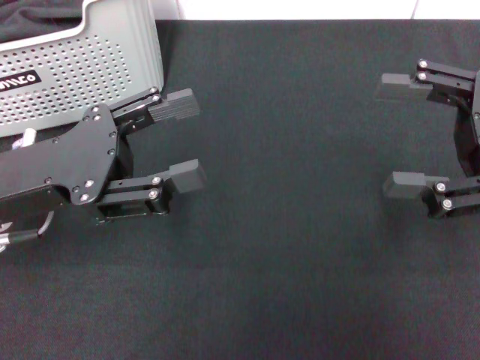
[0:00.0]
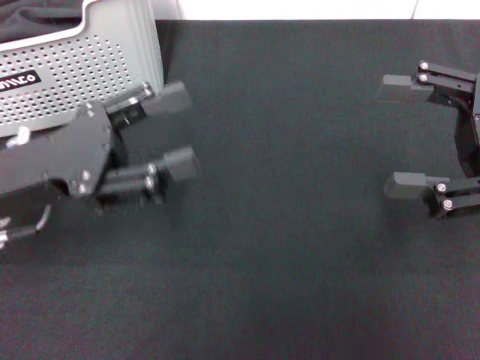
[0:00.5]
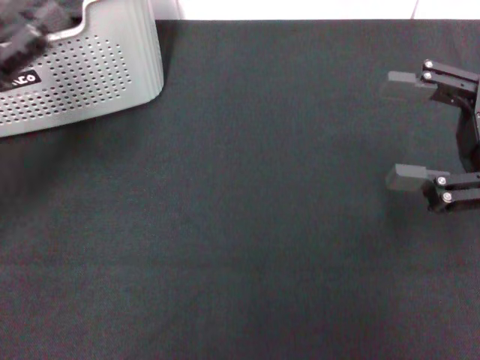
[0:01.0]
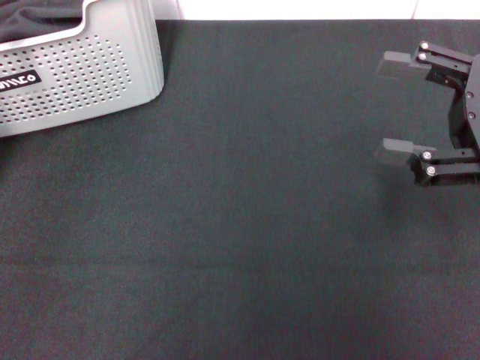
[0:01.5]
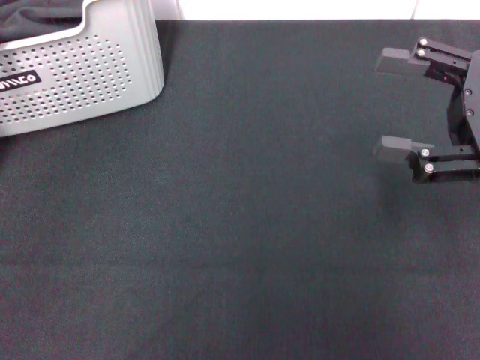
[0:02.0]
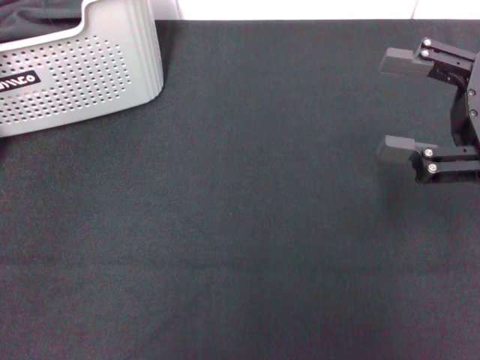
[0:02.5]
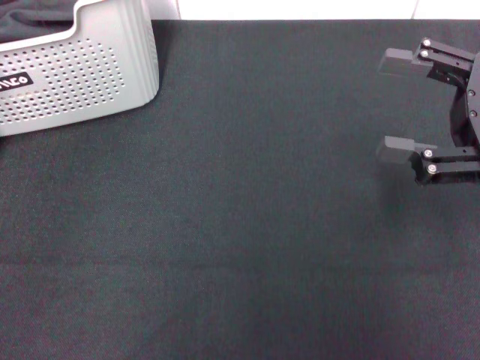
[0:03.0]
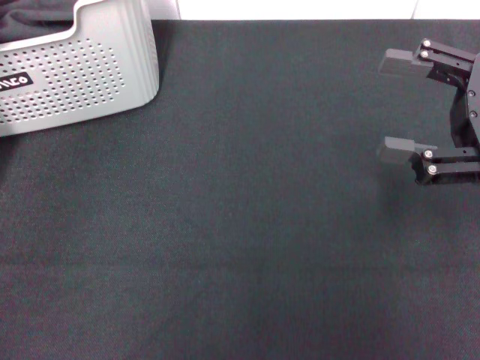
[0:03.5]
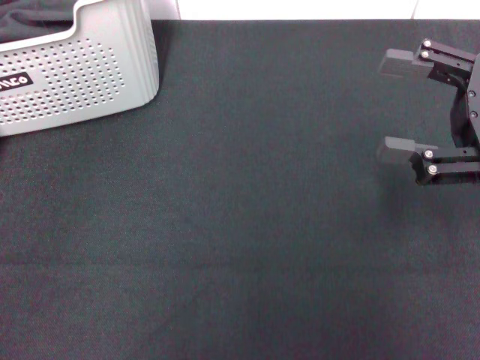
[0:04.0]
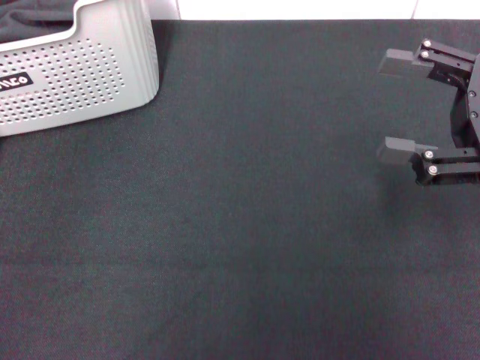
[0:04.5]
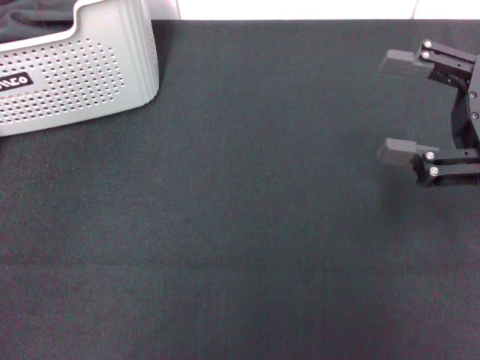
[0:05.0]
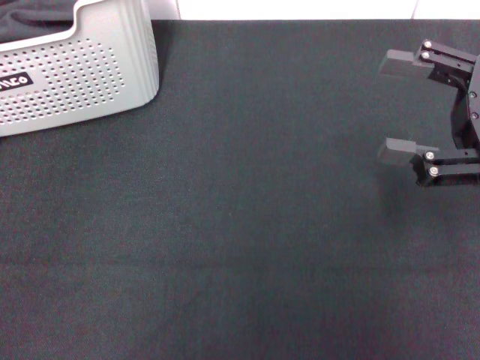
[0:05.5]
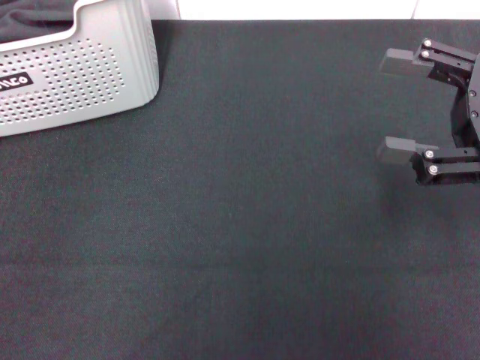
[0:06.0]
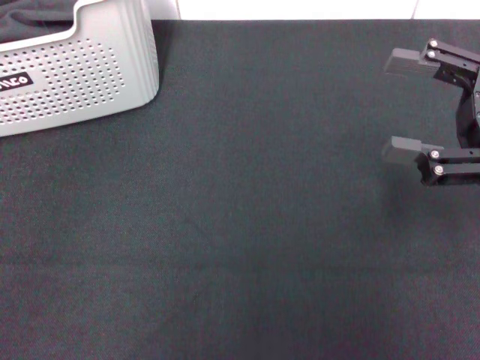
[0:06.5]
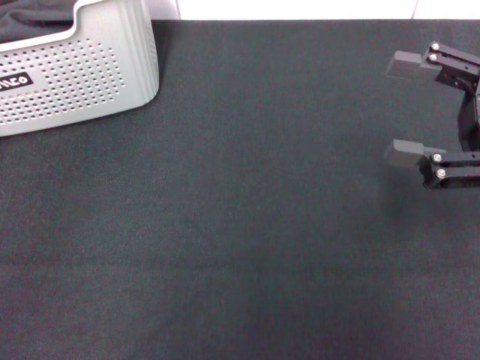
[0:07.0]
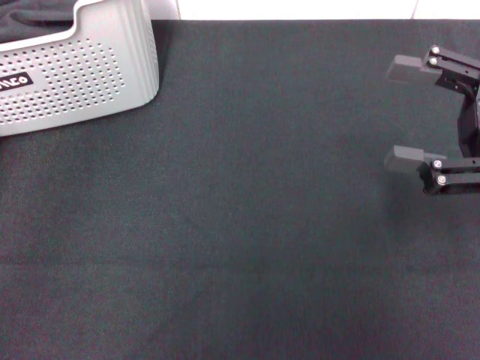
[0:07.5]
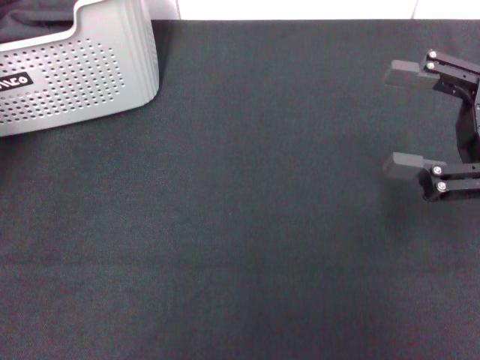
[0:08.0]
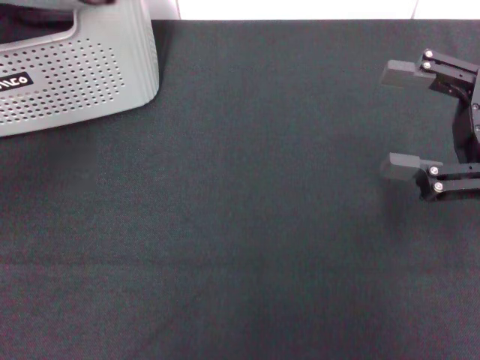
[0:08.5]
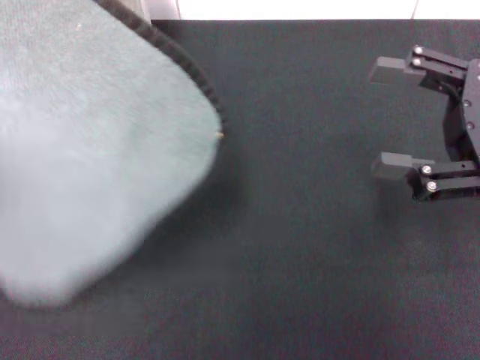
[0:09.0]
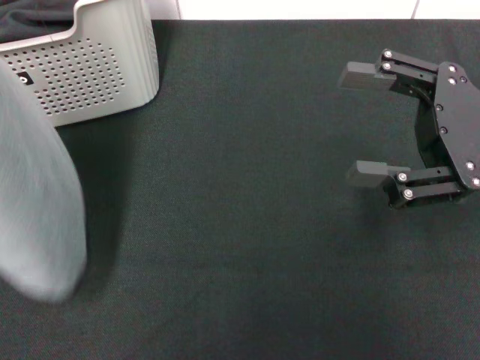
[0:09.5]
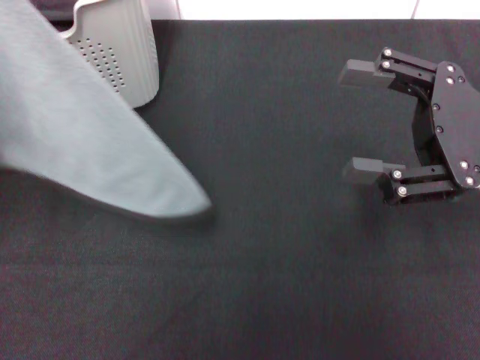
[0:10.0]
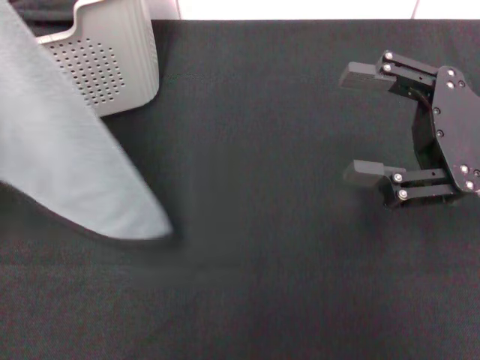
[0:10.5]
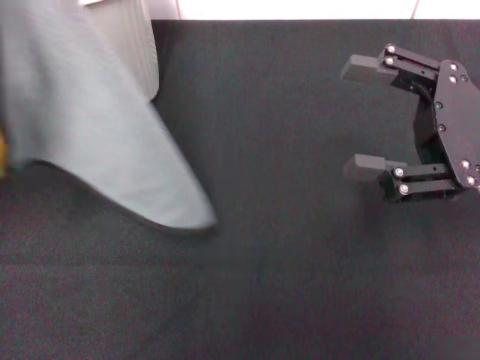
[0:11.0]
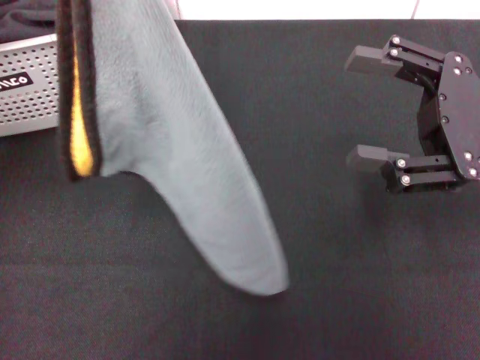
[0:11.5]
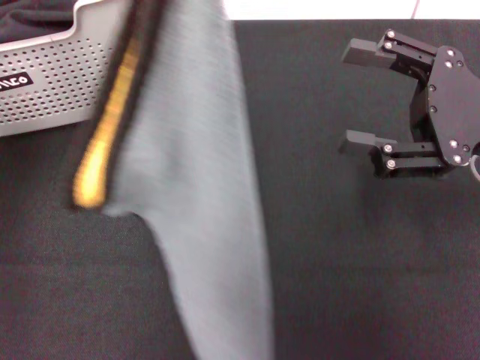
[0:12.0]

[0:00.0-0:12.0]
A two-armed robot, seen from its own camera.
Task of the whole recording: pick up the towel from the storage box and lay it flat on the black tablecloth.
Step, 0:00.0 to 0:06.5: Pick up a towel with the left gripper.
0:00.0 to 0:02.0: The left gripper moves to the left, roughly 10 cm.
0:02.0 to 0:04.0: The grippers make only small movements.
0:06.0 to 0:08.0: The left gripper shifts roughly 5 cm upward, and closes up.
0:08.0 to 0:10.0: The left gripper goes approximately 10 cm upward.
0:10.0 to 0:12.0: The left gripper shifts approximately 10 cm upward and to the right.

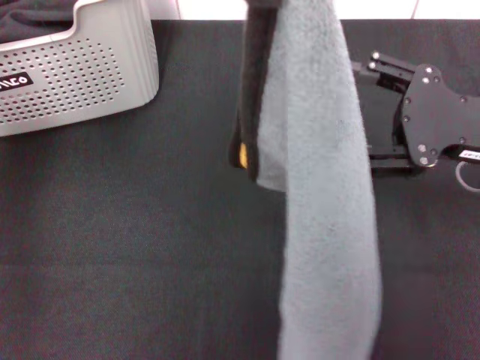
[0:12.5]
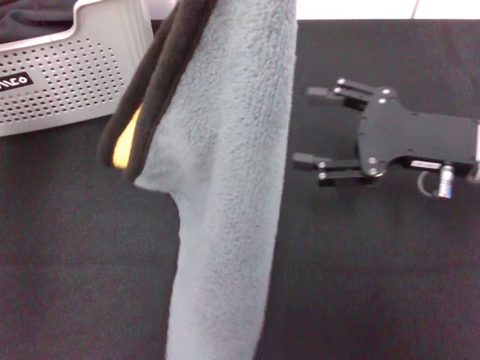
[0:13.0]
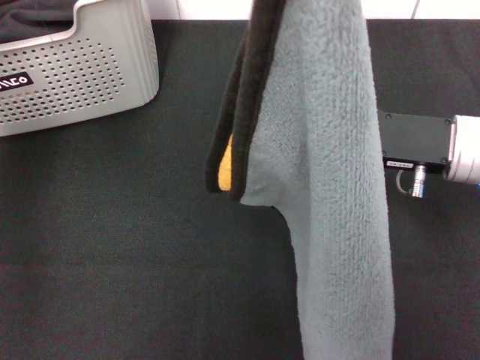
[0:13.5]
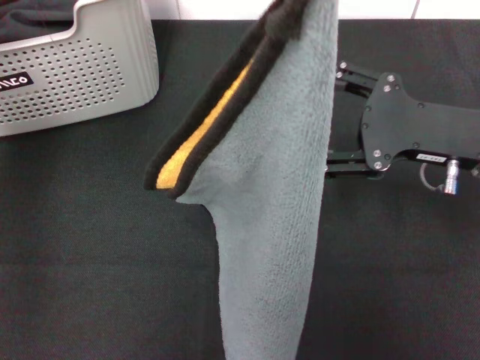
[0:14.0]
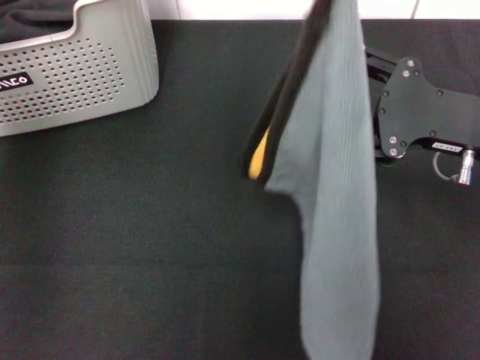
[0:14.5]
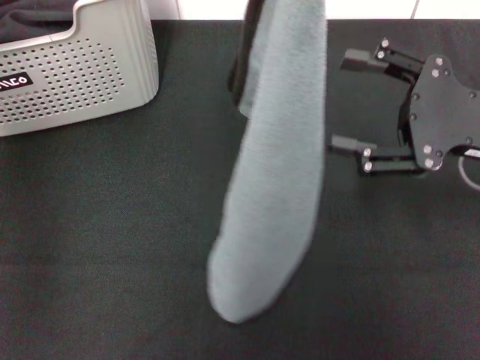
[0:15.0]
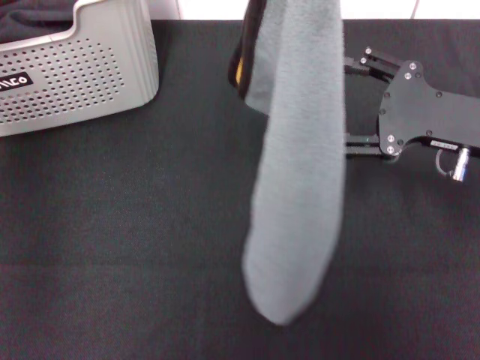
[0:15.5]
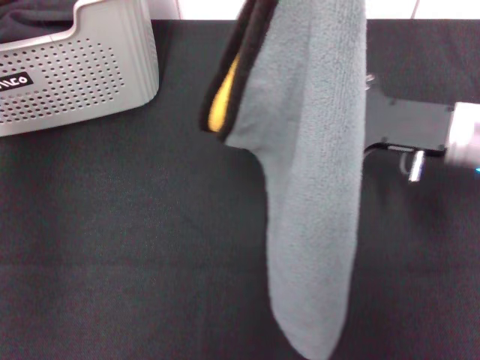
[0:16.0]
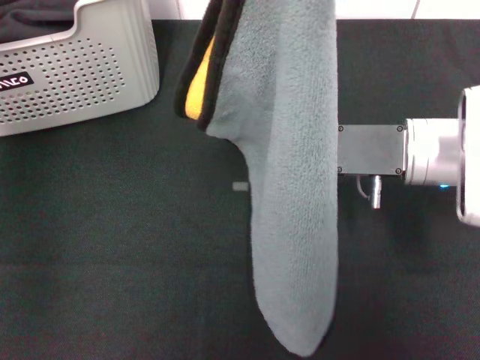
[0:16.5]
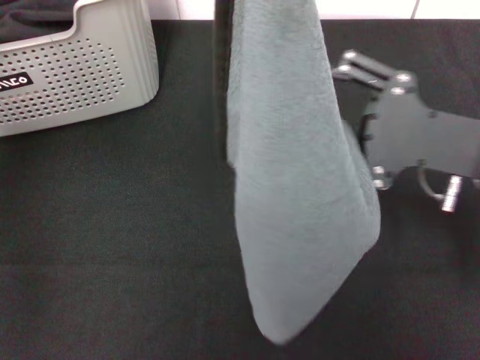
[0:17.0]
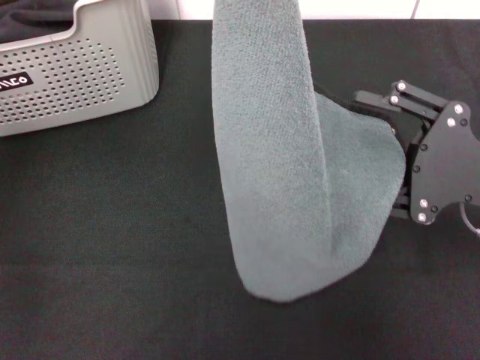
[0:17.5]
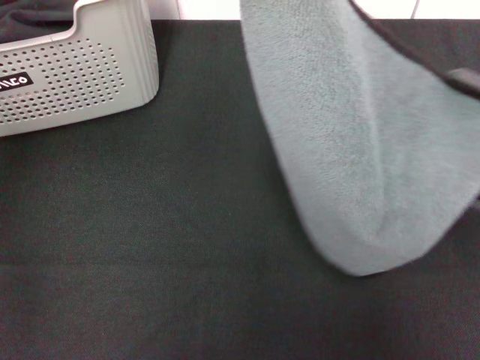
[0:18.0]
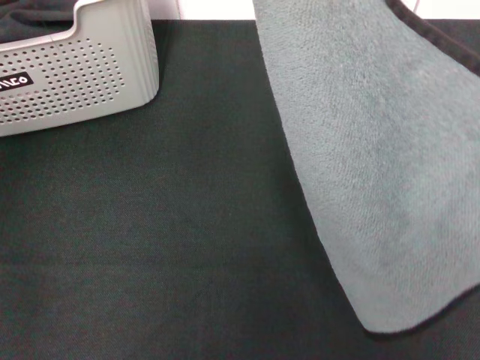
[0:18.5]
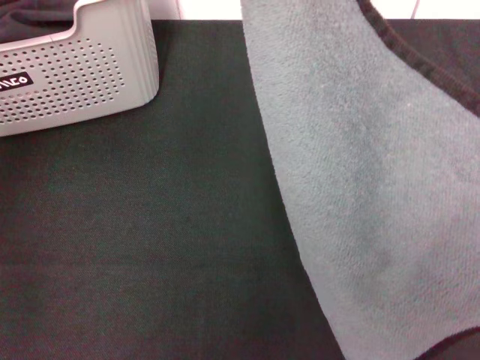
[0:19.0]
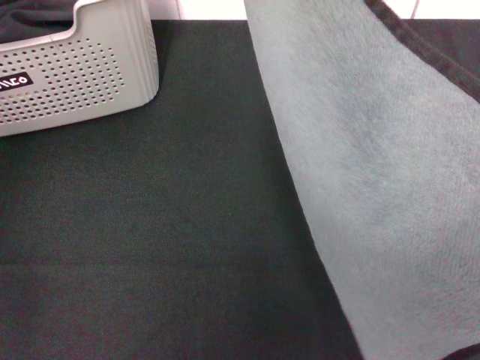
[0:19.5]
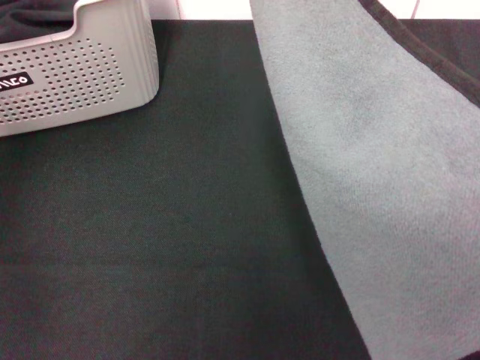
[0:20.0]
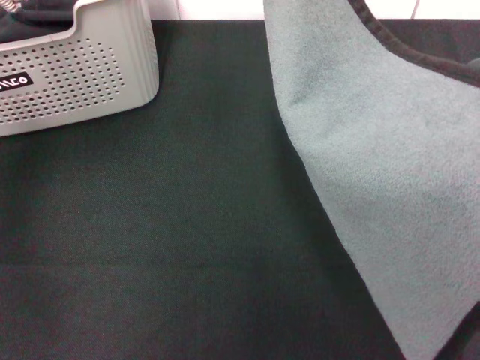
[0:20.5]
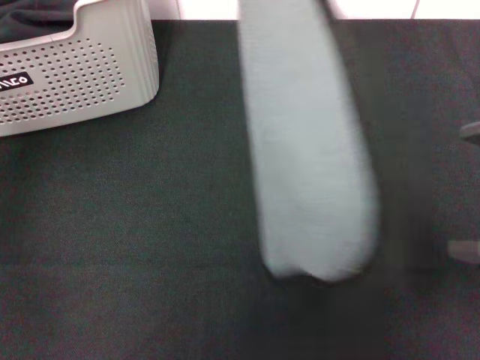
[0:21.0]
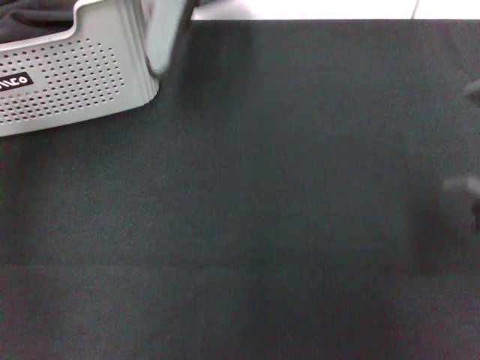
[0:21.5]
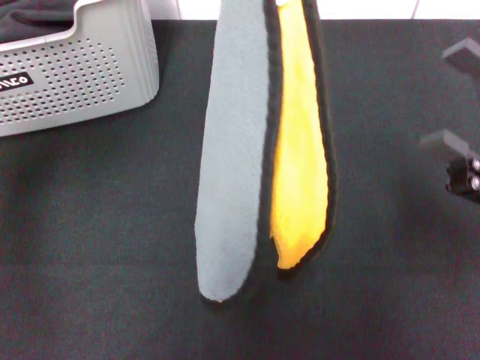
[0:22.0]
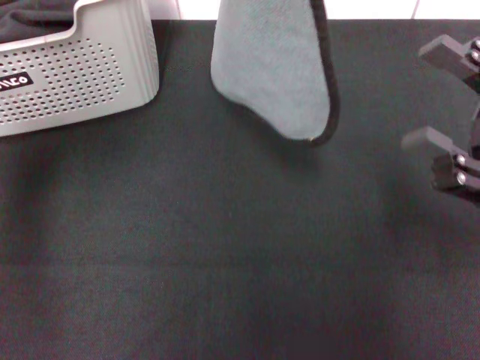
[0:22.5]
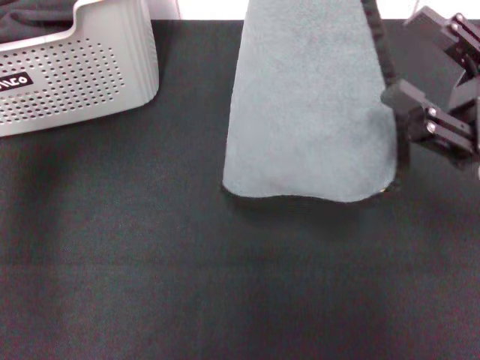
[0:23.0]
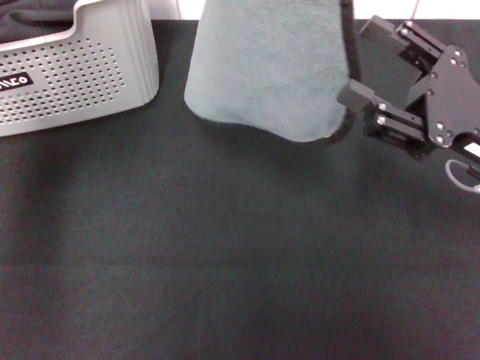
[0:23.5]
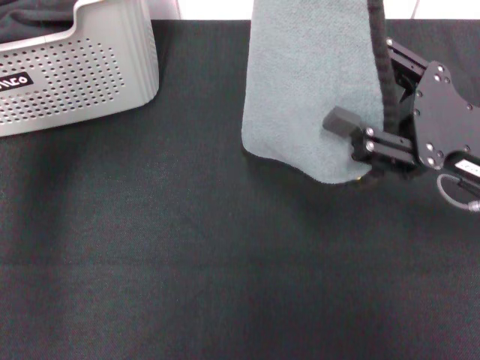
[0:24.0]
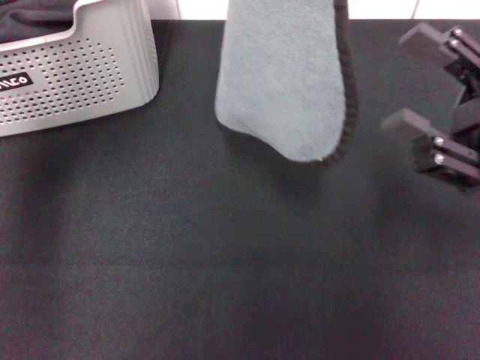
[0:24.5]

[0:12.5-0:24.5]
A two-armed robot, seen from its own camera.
Task of the whole recording: pick up the towel from the storage box and lay it flat on the black tablecloth.
0:14.5 to 0:16.5: The right gripper heads to the left, covering approximately 5 cm.
0:16.5 to 0:18.5: The left gripper shifts by about 5 cm, while the right gripper shifts roughly 20 cm to the right and backward.
0:18.5 to 0:20.5: The left gripper goes some 10 cm downward. Meanwhile the right gripper is displaced to the left by some 5 cm.
0:22.5 to 0:24.5: The grippers stay close to where they were, moving slightly.

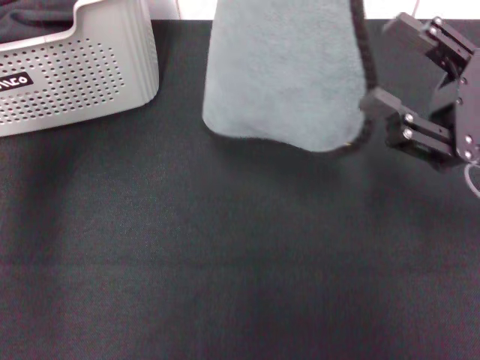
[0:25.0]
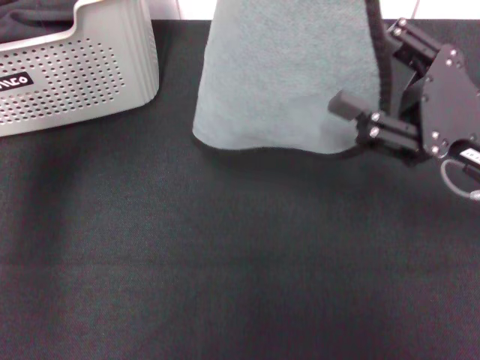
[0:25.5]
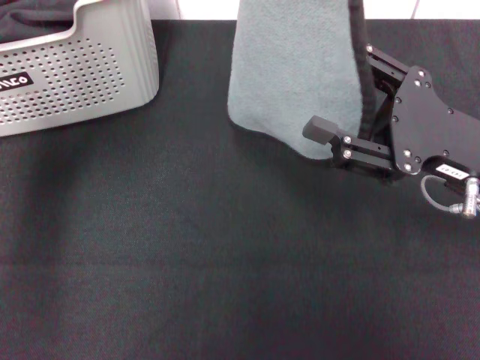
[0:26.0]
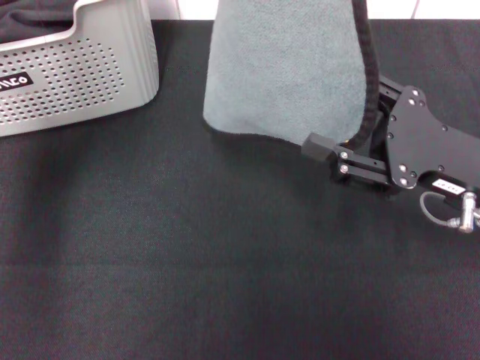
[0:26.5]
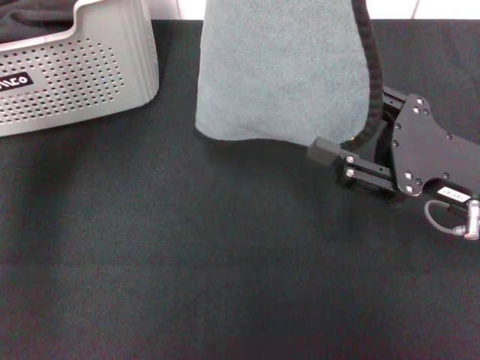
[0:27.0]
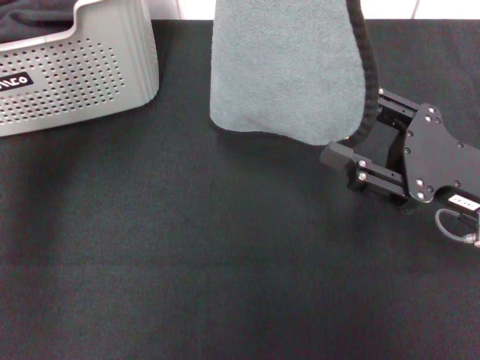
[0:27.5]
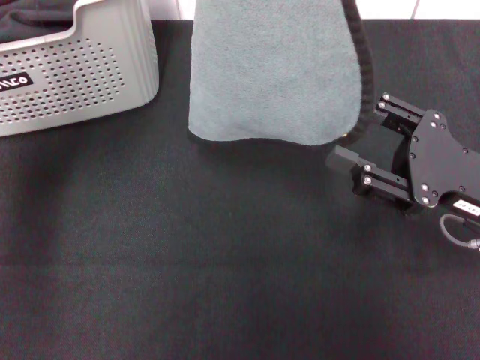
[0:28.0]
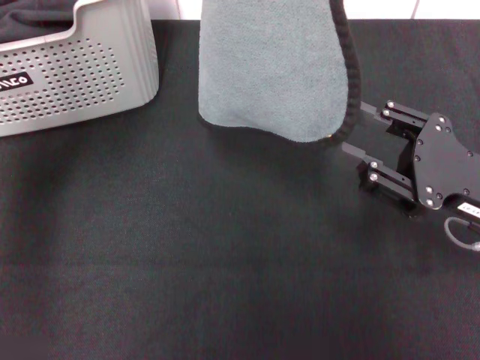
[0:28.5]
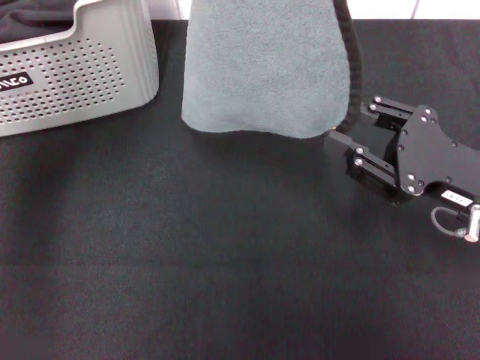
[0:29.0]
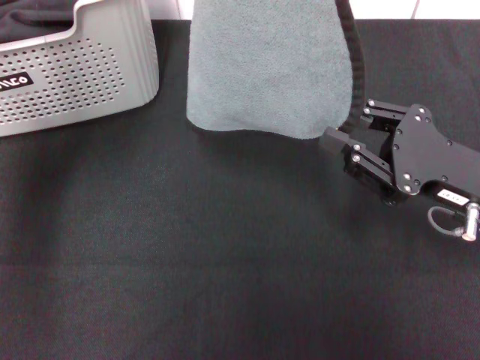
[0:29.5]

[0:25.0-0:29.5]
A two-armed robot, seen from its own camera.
Task of the whole recording: pick up the towel from the storage box and lay it flat on the black tablecloth.
0:25.0 to 0:27.0: The grippers make only small movements.
0:27.0 to 0:29.5: The right gripper closes its fingers.
